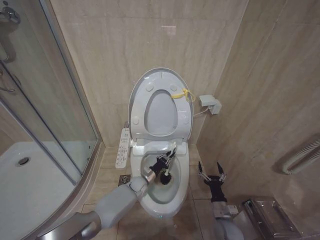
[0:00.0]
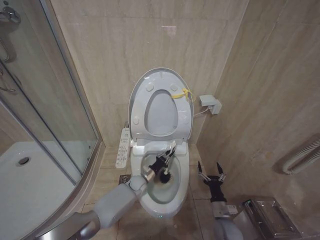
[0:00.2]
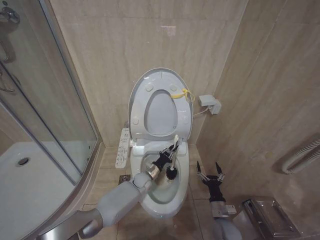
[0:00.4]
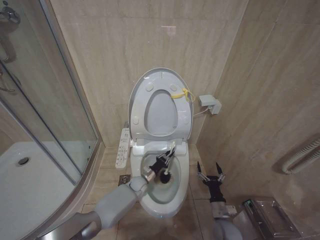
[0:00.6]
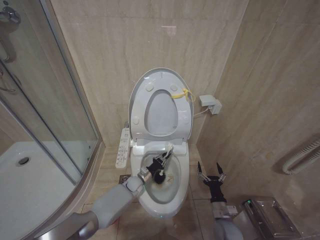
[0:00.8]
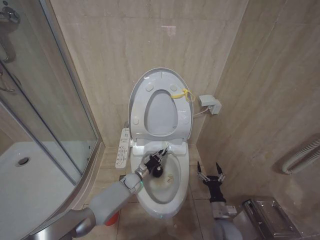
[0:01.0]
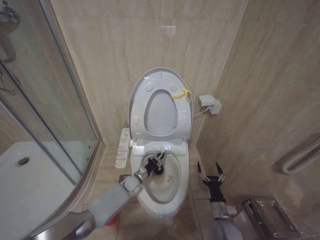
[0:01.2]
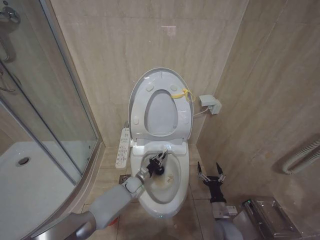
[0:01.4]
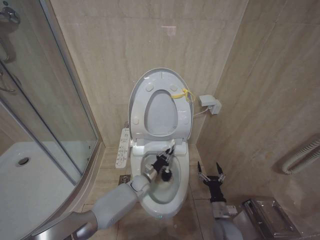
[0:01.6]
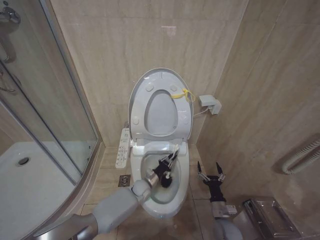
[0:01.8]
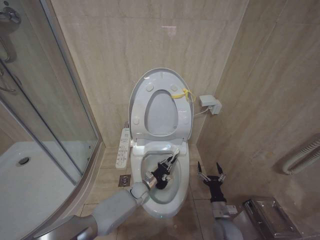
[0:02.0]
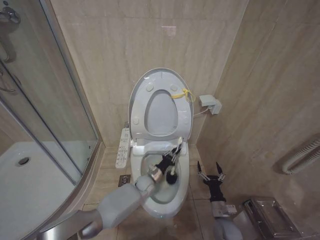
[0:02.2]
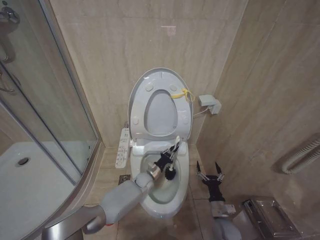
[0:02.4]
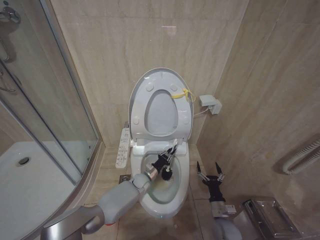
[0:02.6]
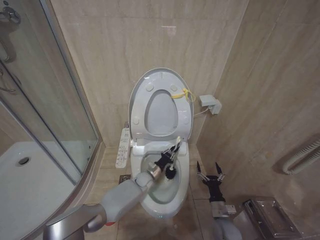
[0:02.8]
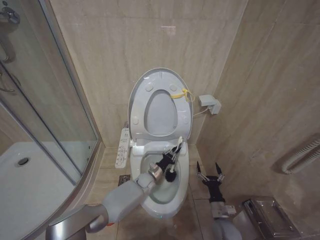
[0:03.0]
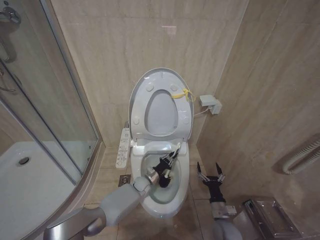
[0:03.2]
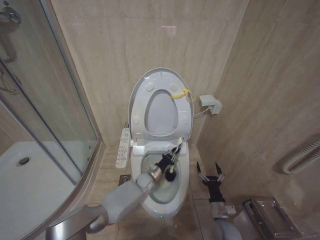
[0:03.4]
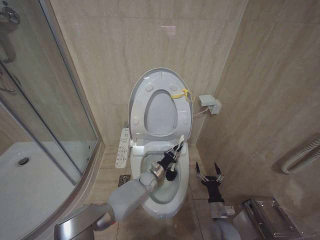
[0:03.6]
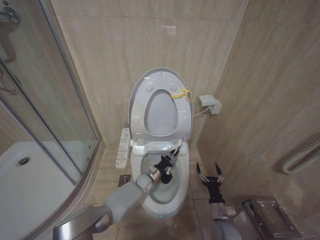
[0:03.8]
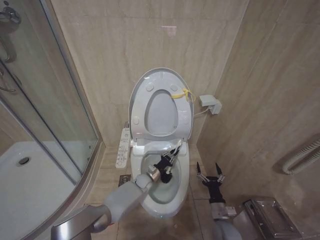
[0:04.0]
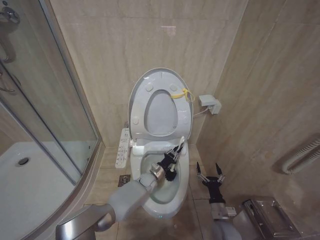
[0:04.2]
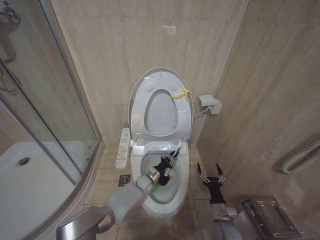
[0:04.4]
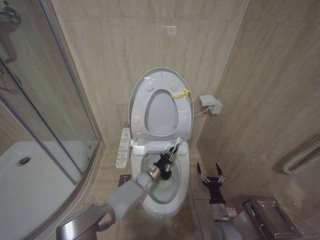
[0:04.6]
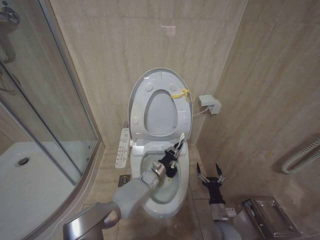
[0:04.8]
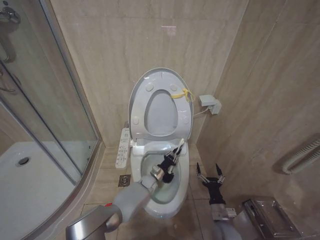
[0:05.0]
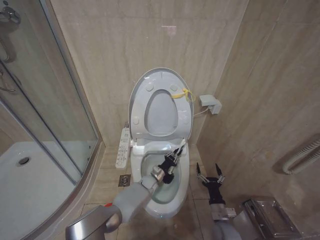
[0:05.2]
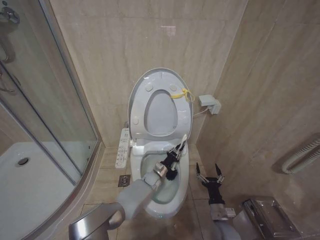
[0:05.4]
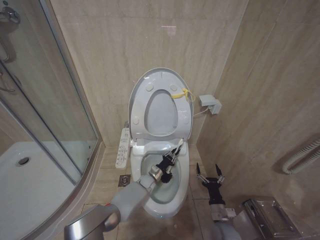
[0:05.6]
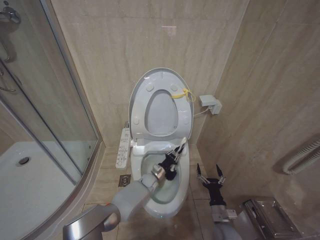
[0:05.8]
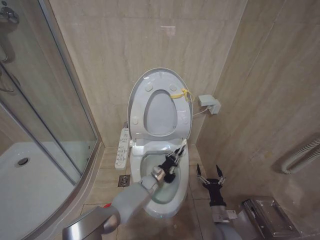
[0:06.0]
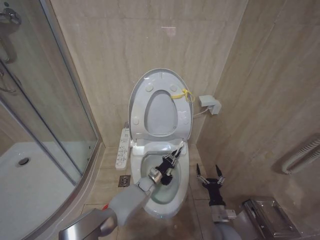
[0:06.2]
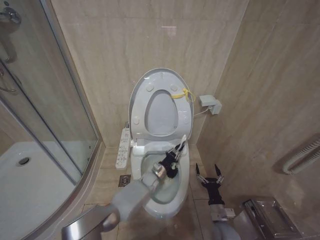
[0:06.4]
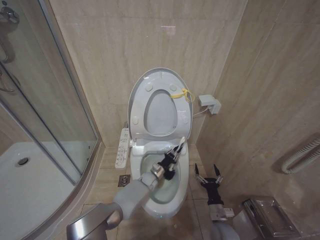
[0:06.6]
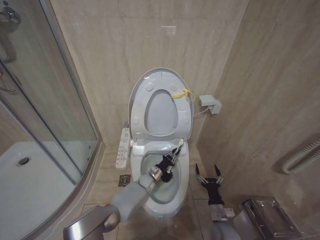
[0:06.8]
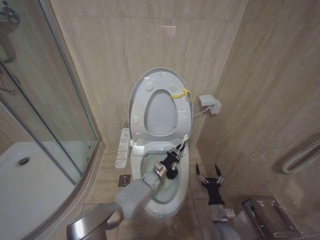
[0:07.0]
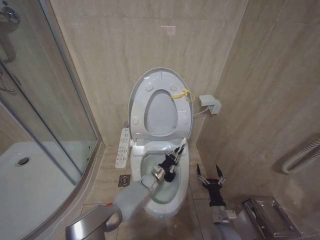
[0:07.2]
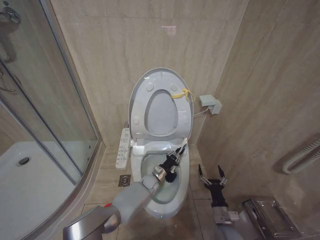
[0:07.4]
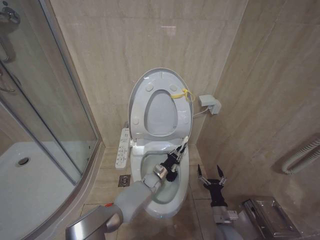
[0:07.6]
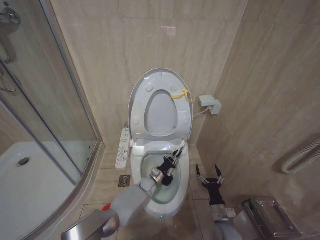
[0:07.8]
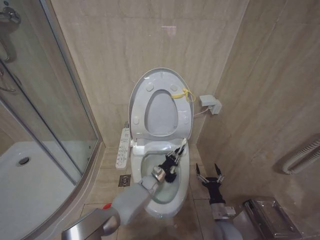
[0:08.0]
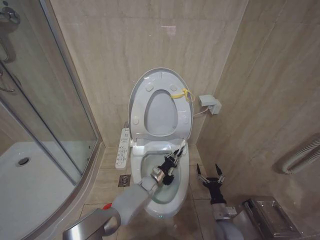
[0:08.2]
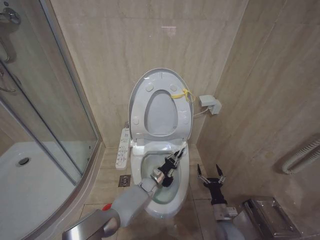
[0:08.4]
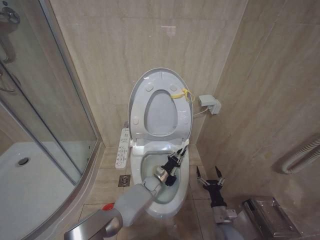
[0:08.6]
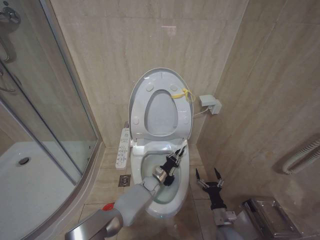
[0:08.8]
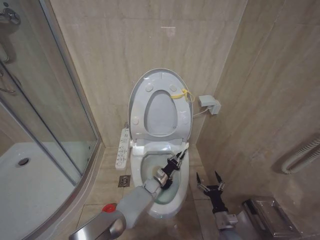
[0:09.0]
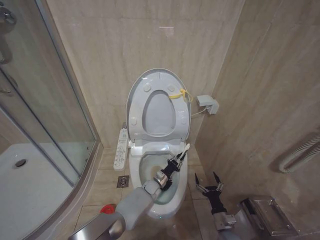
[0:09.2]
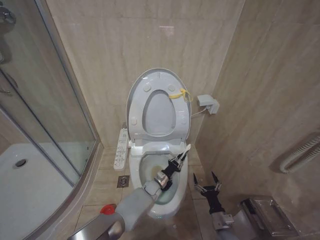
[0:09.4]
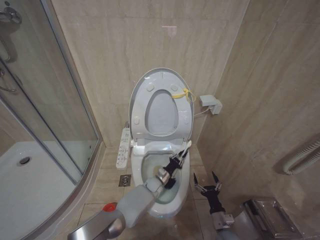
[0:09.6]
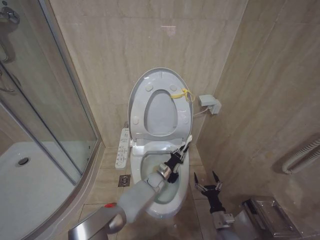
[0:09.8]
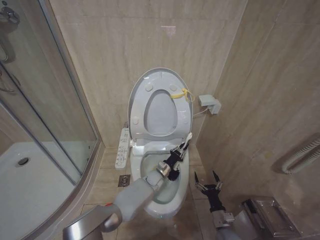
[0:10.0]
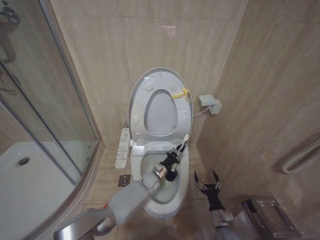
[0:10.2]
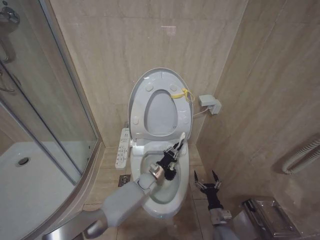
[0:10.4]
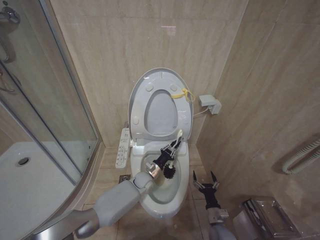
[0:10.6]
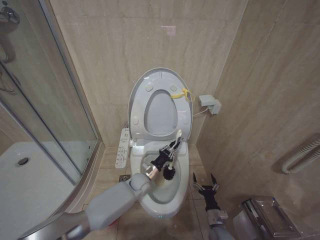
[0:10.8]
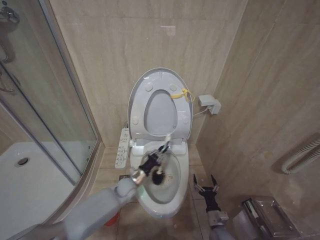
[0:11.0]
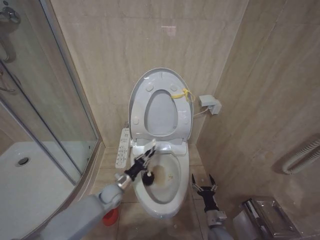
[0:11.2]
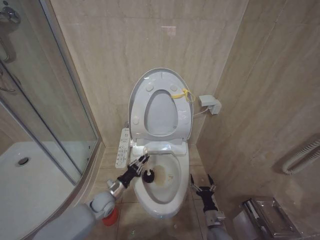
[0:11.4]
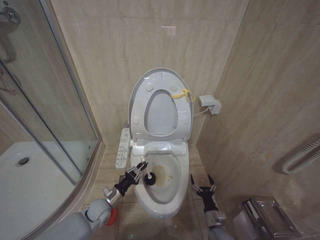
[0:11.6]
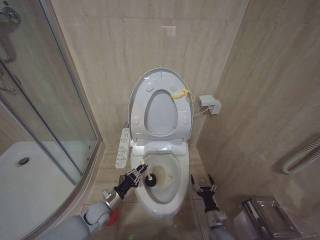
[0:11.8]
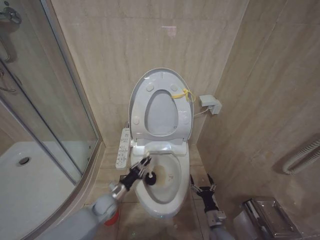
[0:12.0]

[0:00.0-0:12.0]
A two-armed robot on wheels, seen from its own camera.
Task of the whole recording: Open the toilet lid, clean the toilet bowl with a toilet brush, close the toilet lid, and flush.
0:00.0 to 0:04.4: The grippers stay close to where they were, moving slightly.
0:04.4 to 0:09.0: The grippers make only small movements.
0:09.0 to 0:10.4: The left gripper is displaced upward by approximately 5 cm.
0:10.4 to 0:12.0: The left gripper shifts roughly 25 cm to the left and backward.

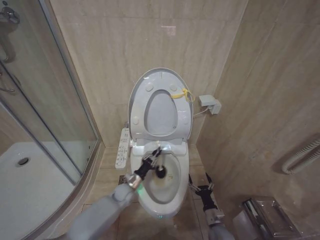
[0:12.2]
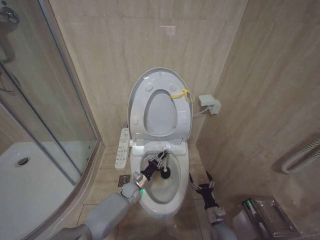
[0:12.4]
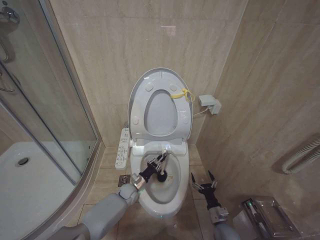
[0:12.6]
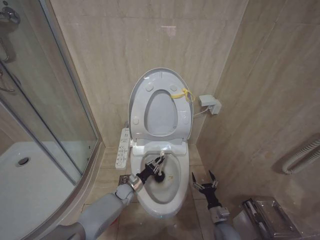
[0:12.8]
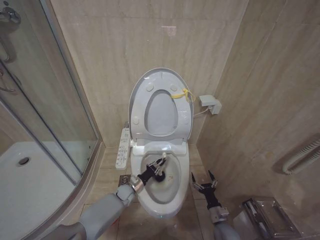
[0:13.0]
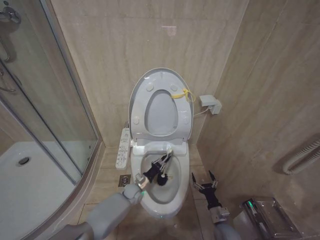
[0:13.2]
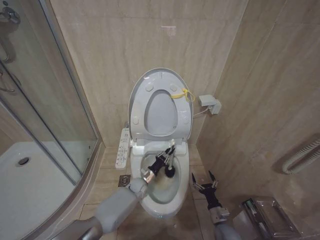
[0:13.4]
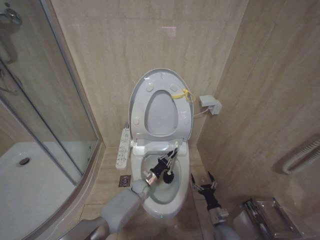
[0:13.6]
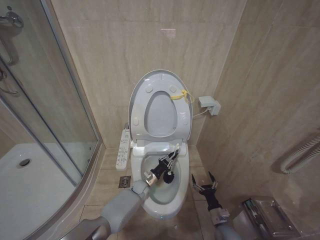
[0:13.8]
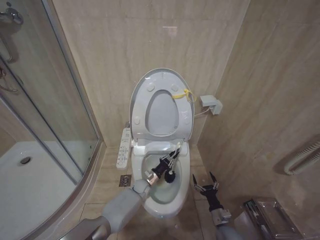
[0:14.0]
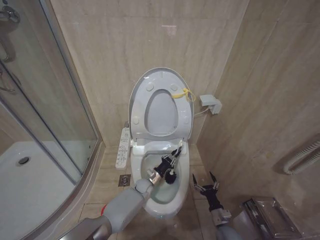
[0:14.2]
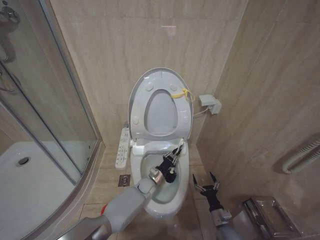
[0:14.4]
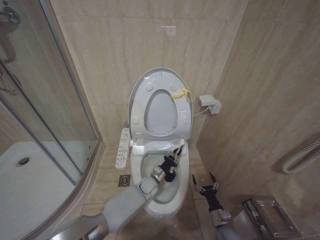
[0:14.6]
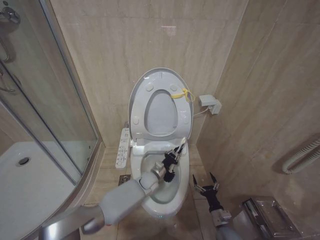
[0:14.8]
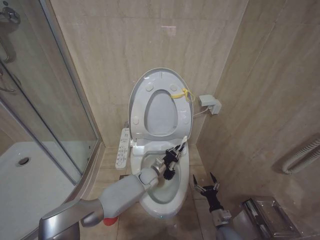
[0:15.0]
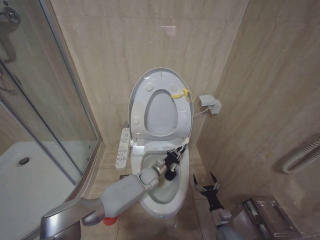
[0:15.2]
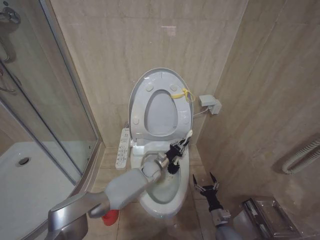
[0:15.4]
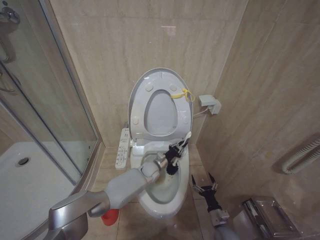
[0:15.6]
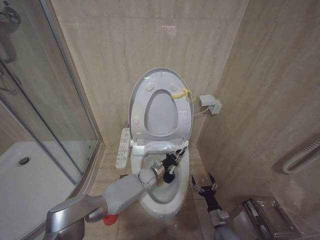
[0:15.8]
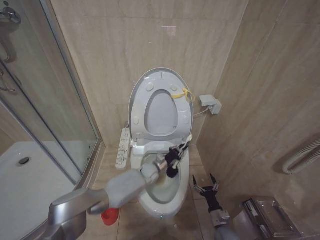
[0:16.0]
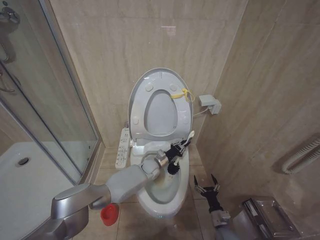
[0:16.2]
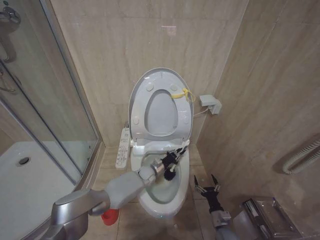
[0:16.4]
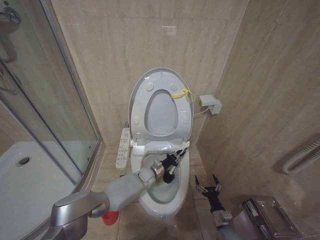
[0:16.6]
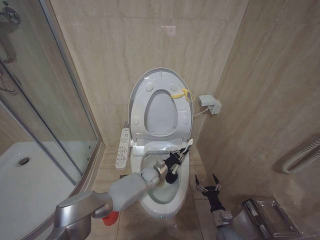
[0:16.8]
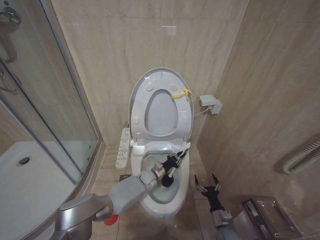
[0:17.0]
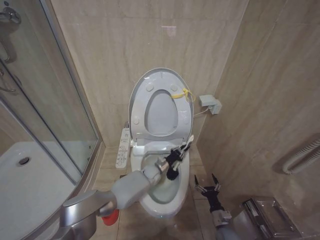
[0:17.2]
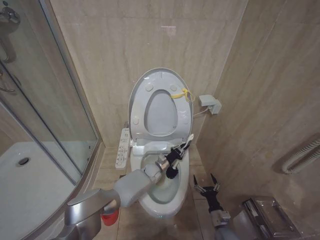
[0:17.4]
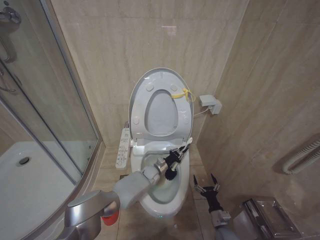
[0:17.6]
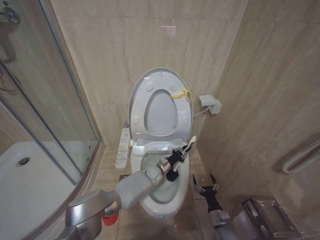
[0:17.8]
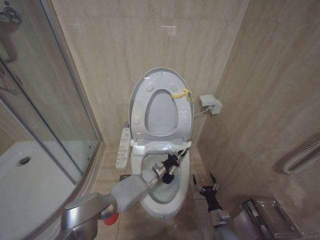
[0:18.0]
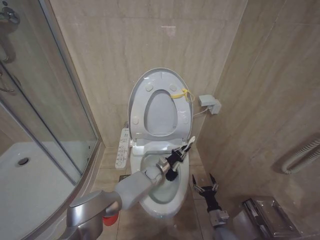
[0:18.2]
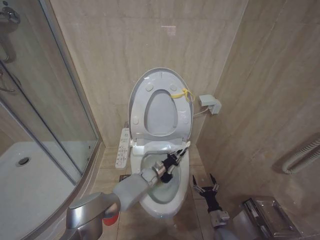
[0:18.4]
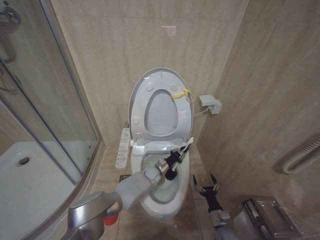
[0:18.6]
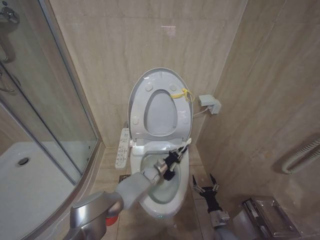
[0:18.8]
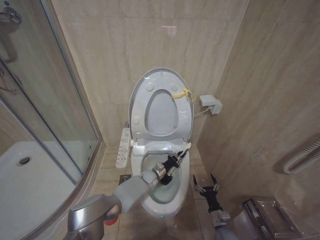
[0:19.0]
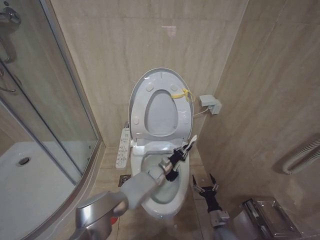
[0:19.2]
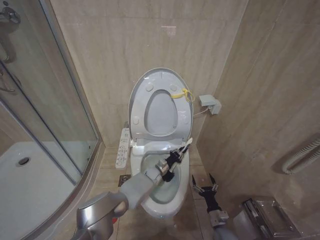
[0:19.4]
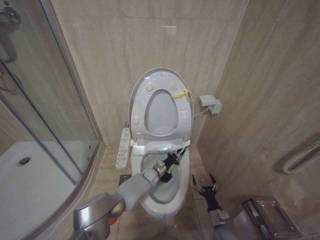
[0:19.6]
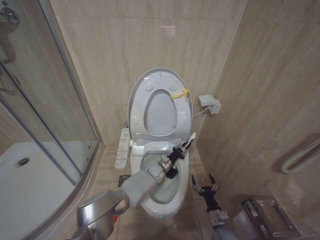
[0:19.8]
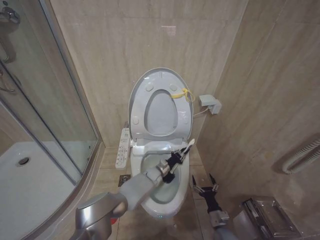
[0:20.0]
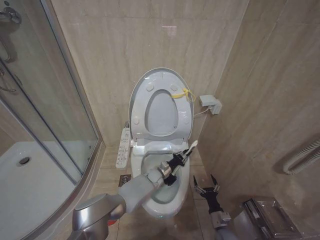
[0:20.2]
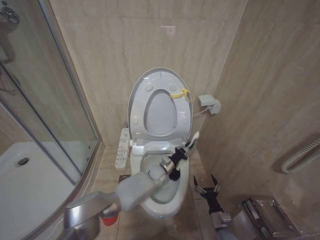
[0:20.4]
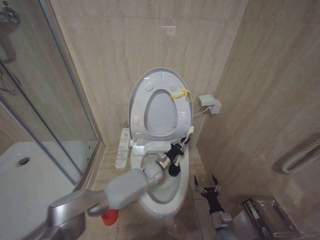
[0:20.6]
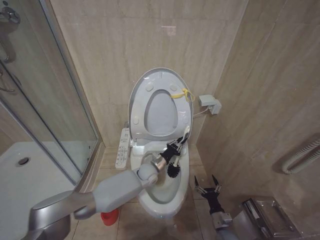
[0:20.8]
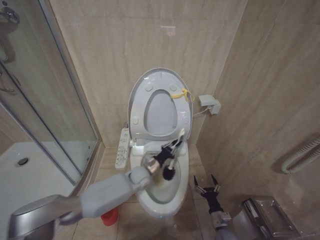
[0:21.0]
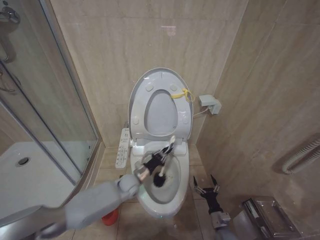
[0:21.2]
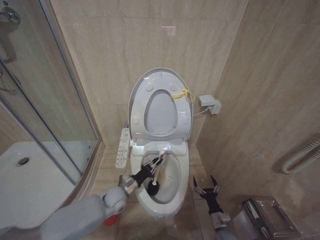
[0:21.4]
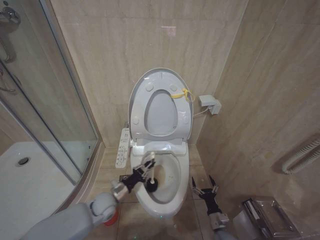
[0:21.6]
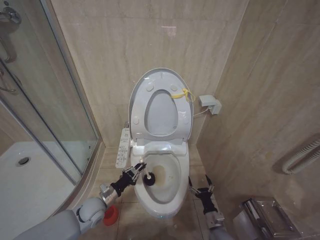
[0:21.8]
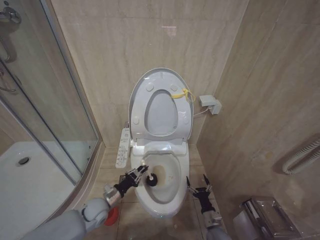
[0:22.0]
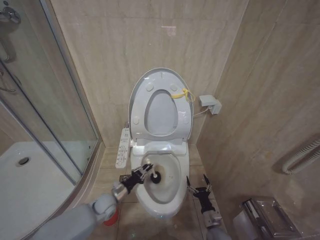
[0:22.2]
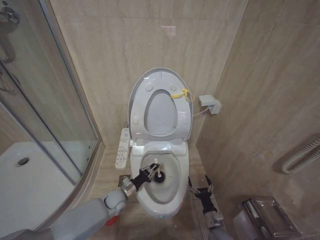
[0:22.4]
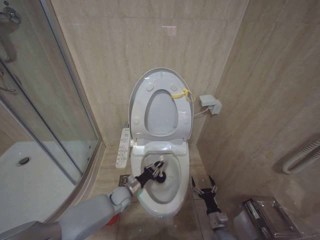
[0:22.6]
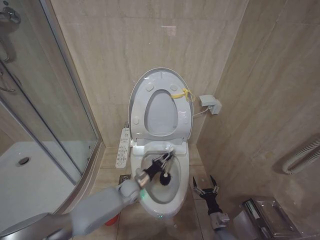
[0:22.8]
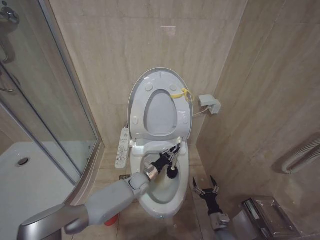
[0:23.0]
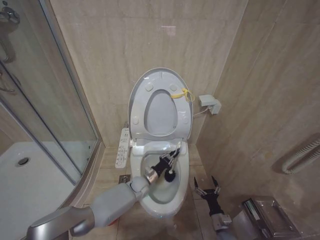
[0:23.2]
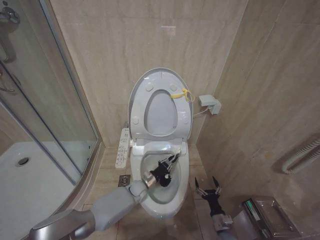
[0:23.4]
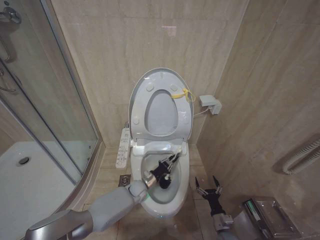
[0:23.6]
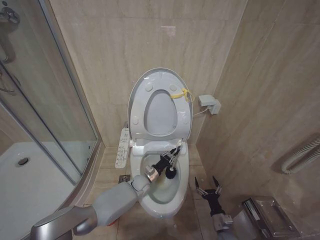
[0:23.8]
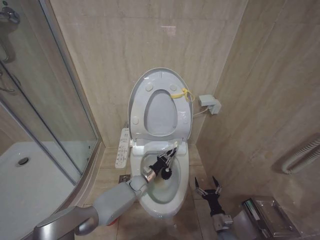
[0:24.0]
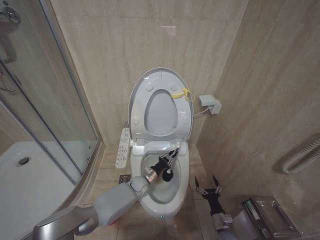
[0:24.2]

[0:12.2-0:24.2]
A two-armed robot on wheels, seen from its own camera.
Task of the whole recording: Open the toilet lid, clean the toilet bowl with a toilet brush, close the toilet lid, and flush.
0:12.2 to 0:13.8: The left gripper is displaced to the right and downward by some 10 cm.
0:13.8 to 0:15.2: The left gripper shifts roughly 10 cm upward.
0:15.2 to 0:18.2: The grippers stay close to where they were, moving slightly.
0:18.2 to 0:19.8: The grippers stay close to where they were, moving slightly.
0:19.8 to 0:21.2: The left gripper moves to the left, backward and upward, some 15 cm.
0:21.2 to 0:22.6: The left gripper goes approximately 10 cm downward and to the left.
0:22.6 to 0:24.2: The left gripper goes approximately 10 cm to the right and forward.
